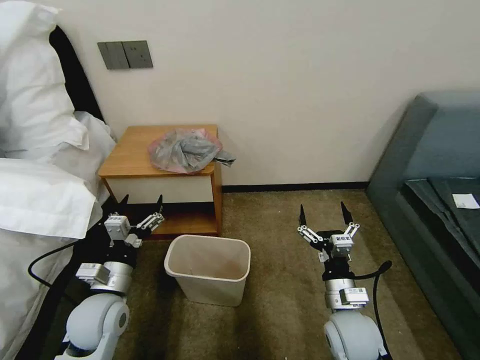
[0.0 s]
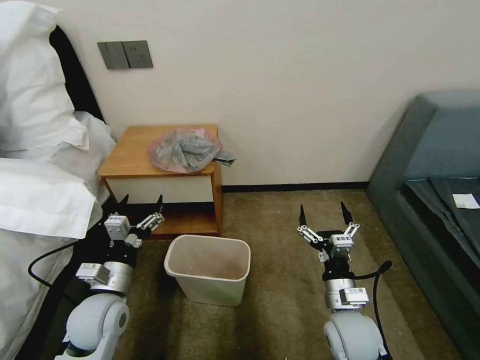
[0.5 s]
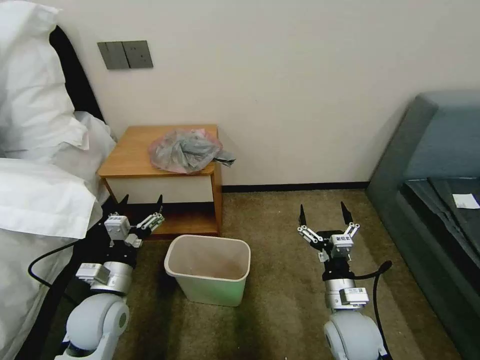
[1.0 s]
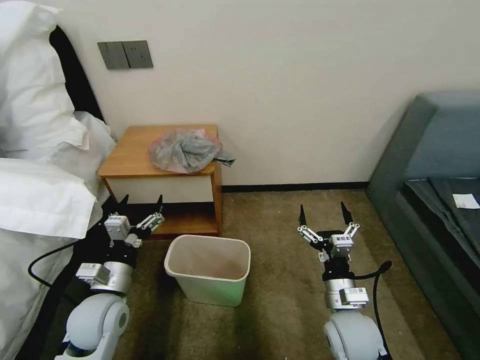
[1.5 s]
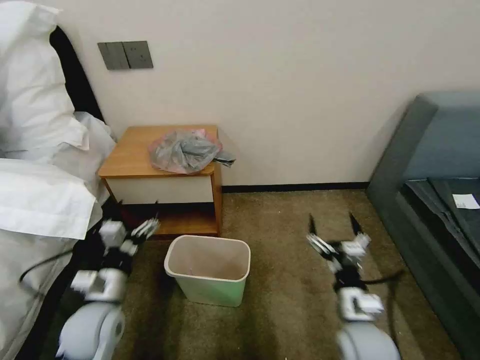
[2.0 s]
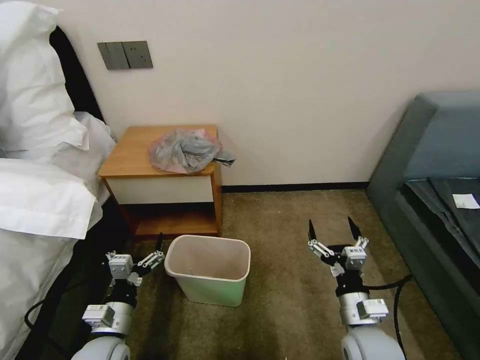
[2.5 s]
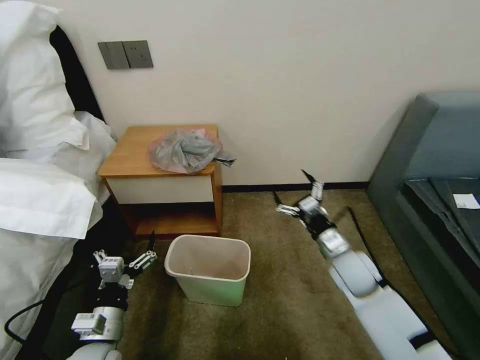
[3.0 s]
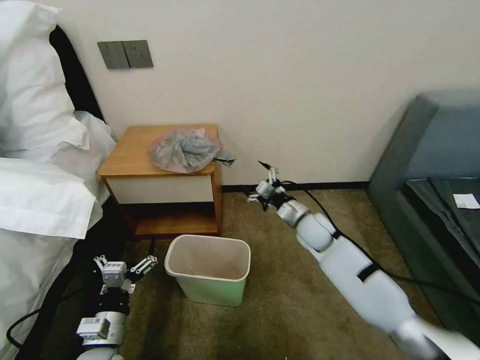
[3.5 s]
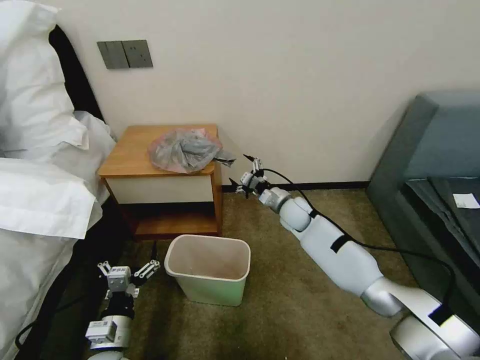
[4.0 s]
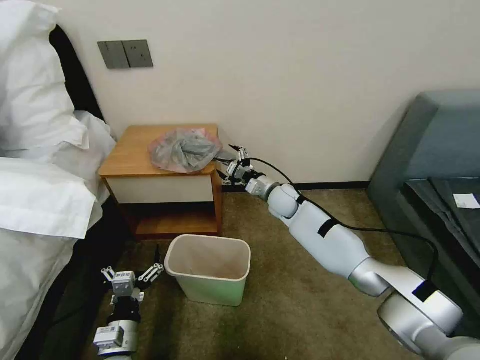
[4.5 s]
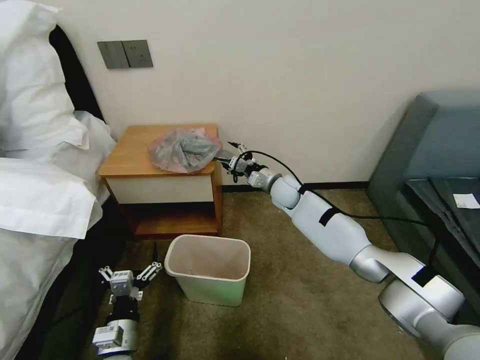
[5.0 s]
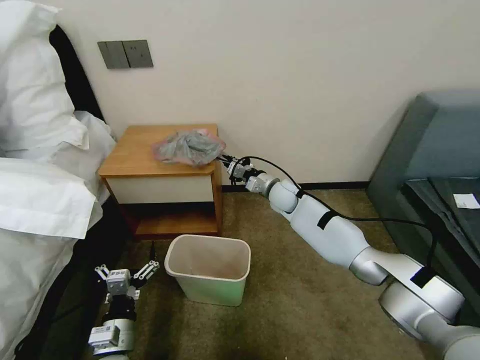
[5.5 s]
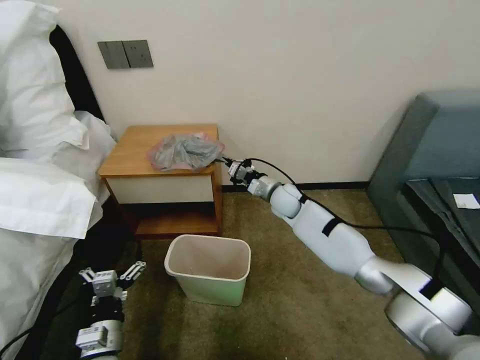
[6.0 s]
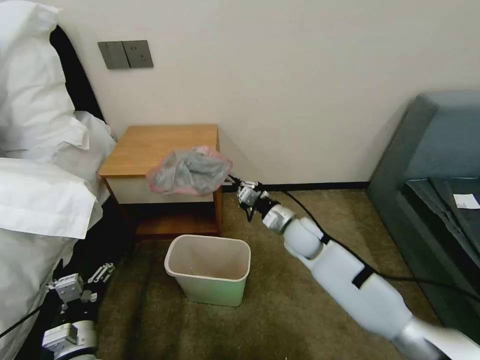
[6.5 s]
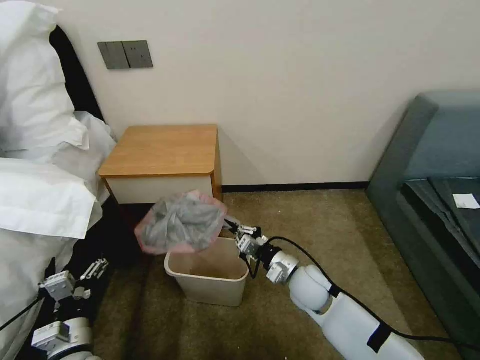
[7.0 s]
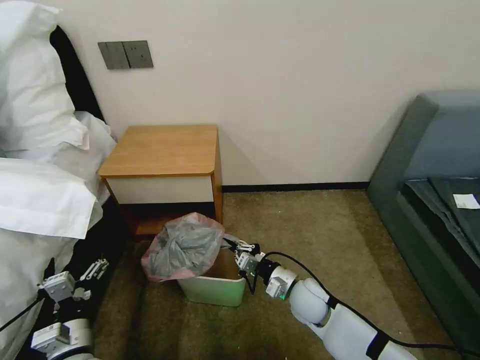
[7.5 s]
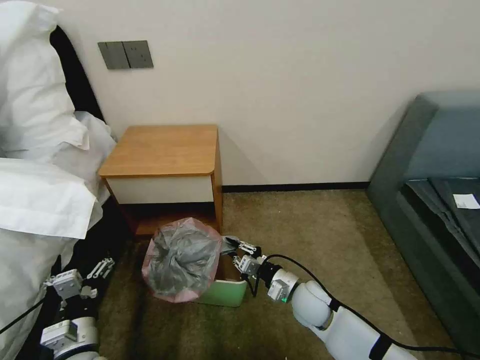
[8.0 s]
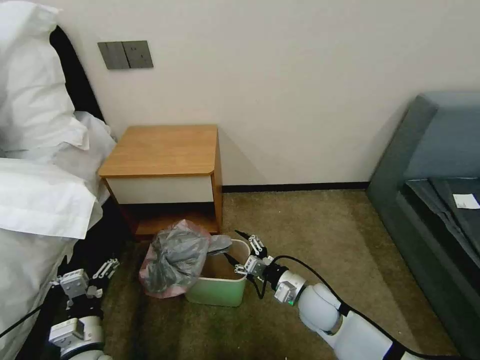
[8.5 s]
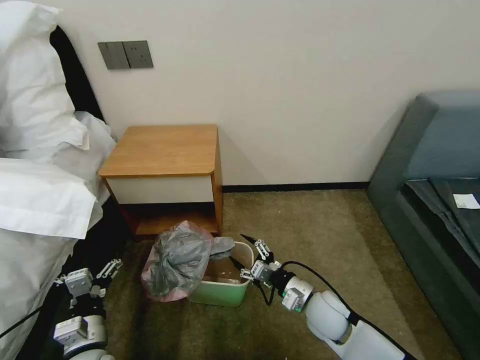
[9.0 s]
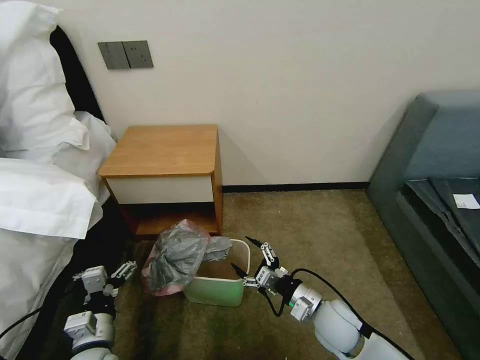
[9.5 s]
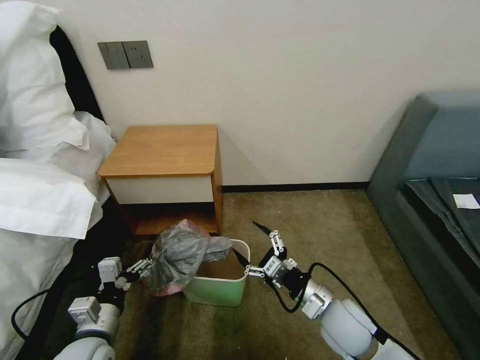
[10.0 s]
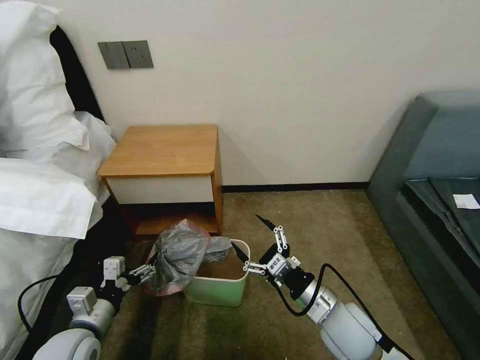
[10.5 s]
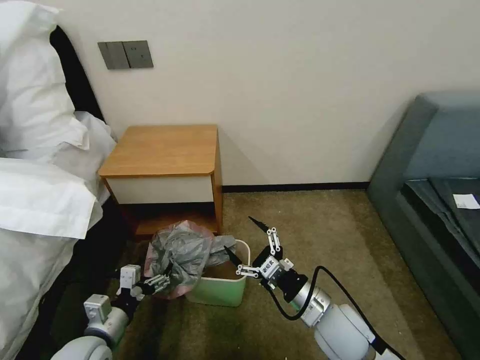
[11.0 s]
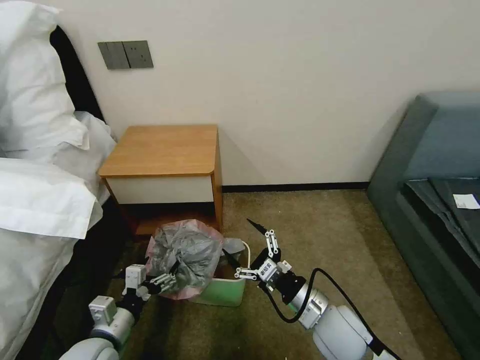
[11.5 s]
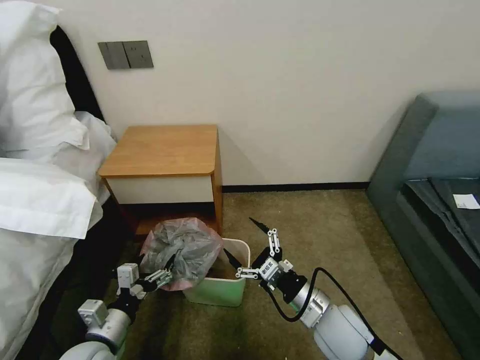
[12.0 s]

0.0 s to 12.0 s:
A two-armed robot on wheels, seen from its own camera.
Task of the whole recording: Pick up the garbage bag from the table and place it over the trash can.
2.0 to 4.0 s: The left gripper moves backward and downward, approximately 10 cm. Meanwhile the right gripper goes approximately 30 cm forward.
4.0 to 6.0 s: The right gripper closes its fingers.
6.0 to 8.0 s: The right gripper is displaced backward and downward by about 25 cm.
8.0 to 10.0 s: The right gripper moves upward and backward, approximately 10 cm, and opens.
10.0 to 12.0 s: The grippers move only a little.

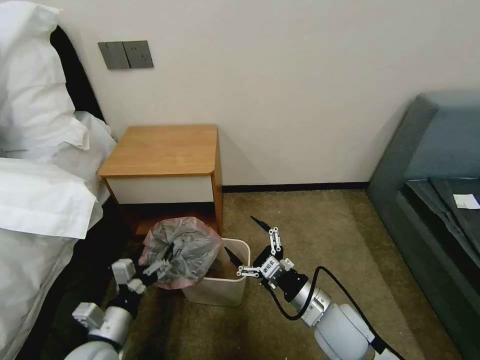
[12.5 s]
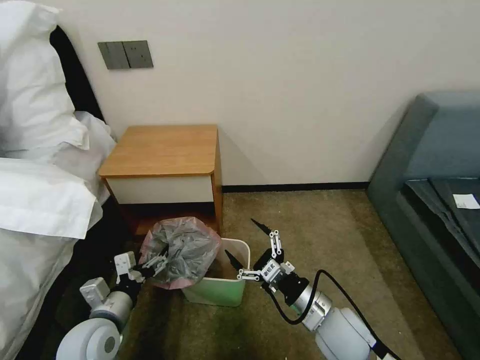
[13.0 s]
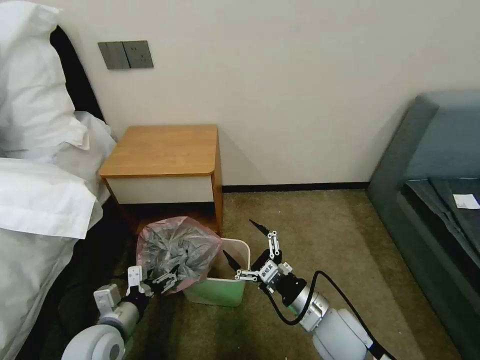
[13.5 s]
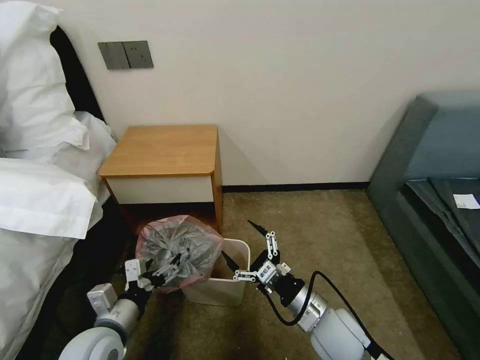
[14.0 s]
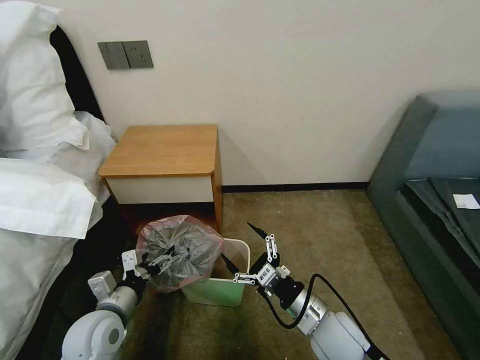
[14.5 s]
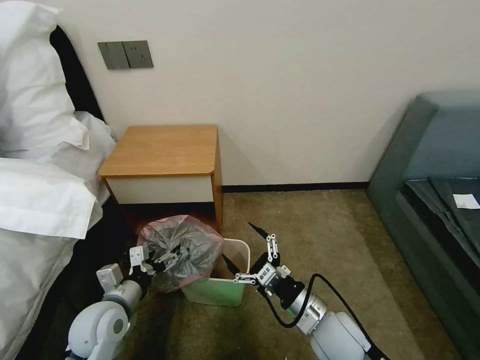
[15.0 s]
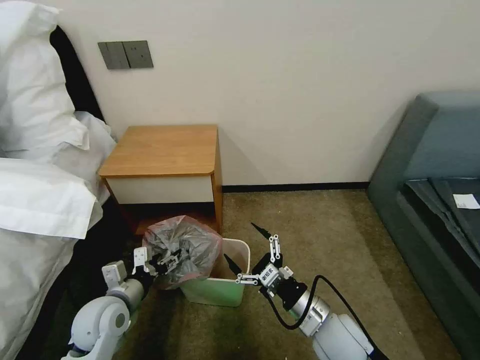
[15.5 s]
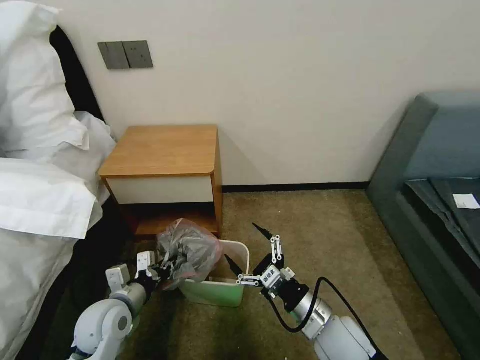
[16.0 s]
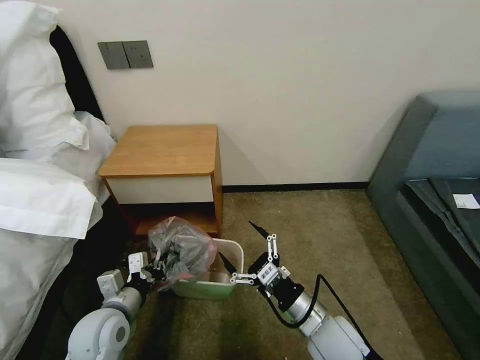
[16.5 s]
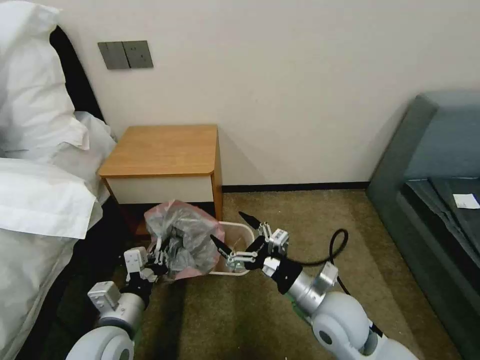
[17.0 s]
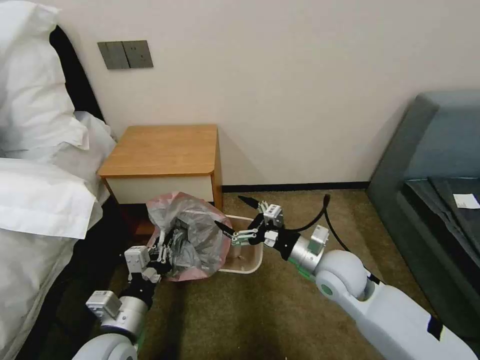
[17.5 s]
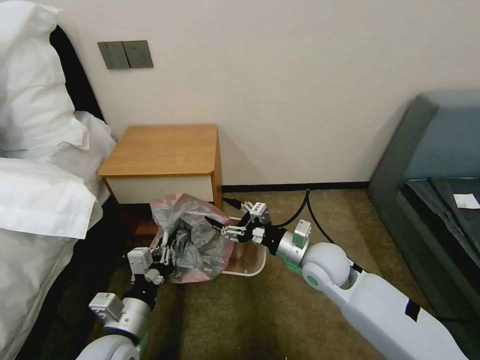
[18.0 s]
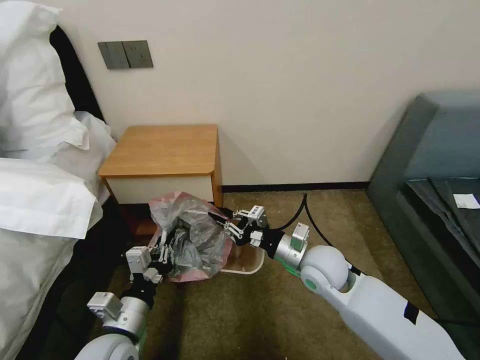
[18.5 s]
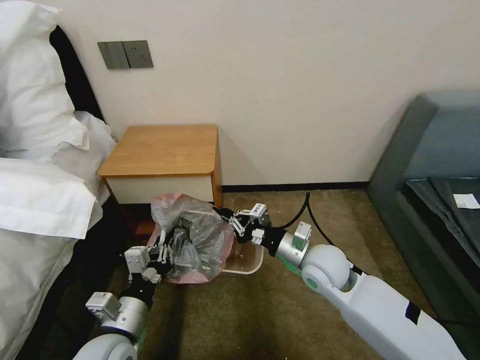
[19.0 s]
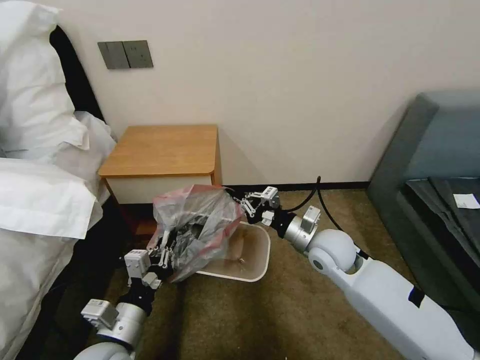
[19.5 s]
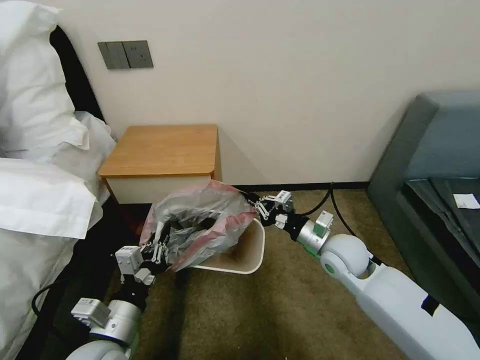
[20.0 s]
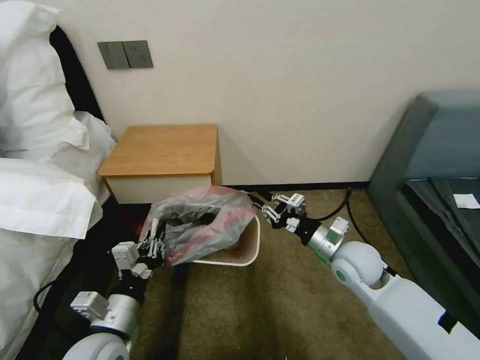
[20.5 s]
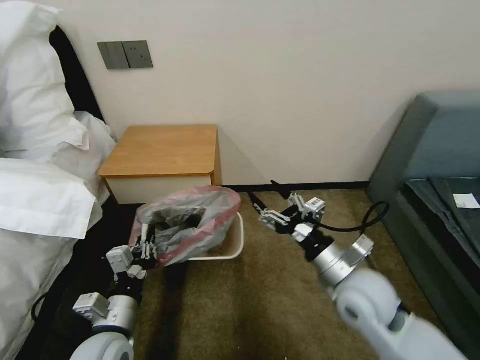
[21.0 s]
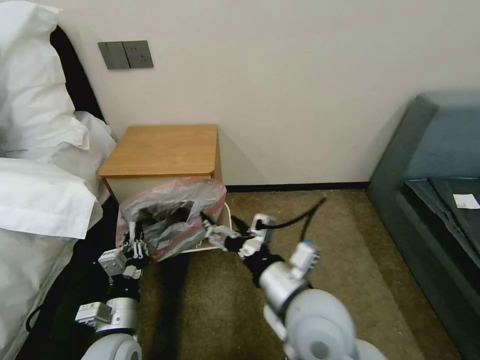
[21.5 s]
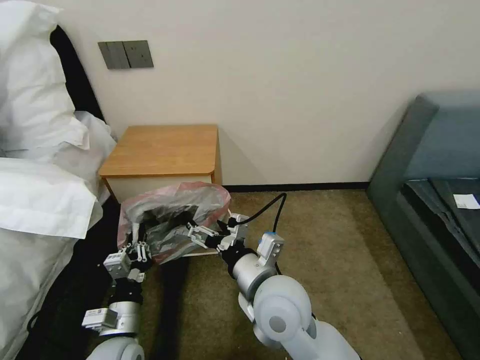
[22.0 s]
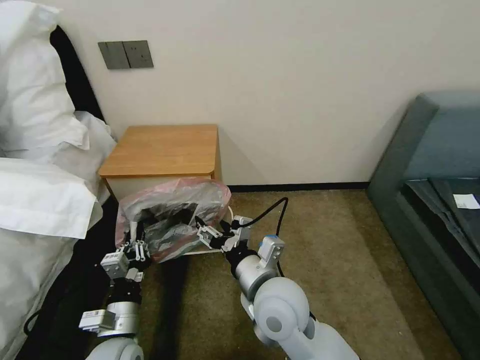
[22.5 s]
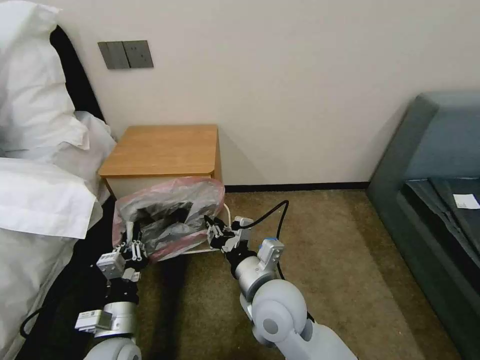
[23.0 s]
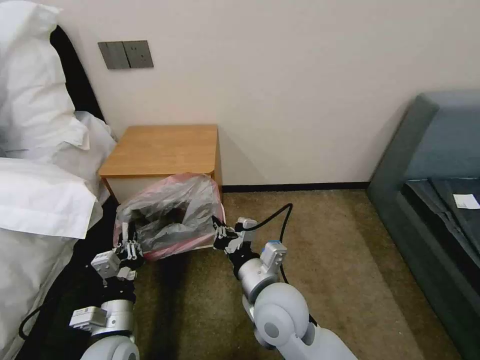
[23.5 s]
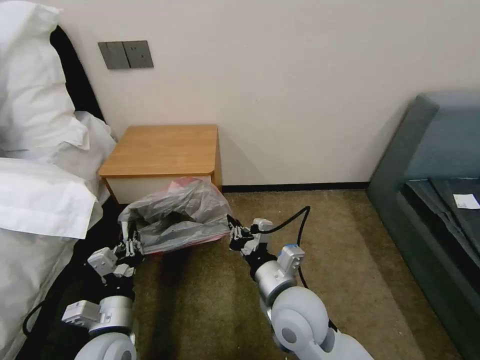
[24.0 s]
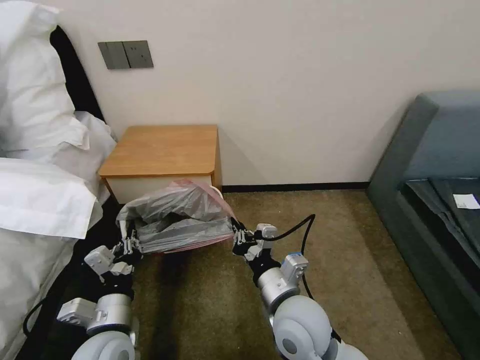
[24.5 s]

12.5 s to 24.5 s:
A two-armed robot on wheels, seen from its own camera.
Task of the whole recording: Pick up the garbage bag from the table and place it over the trash can.
12.5 to 14.5 s: The left gripper moves forward, approximately 5 cm.
14.5 to 16.5 s: The left gripper closes.
16.5 to 18.5 s: The left gripper changes place by approximately 5 cm; the right gripper heads forward and upward, covering approximately 15 cm, and closes.
18.5 to 20.5 s: The right gripper is displaced to the right by approximately 10 cm.
20.5 to 22.5 s: The left gripper shifts some 5 cm downward. The right gripper heads to the left and backward, covering approximately 20 cm, and opens its fingers.
22.5 to 24.5 s: The right gripper closes up.

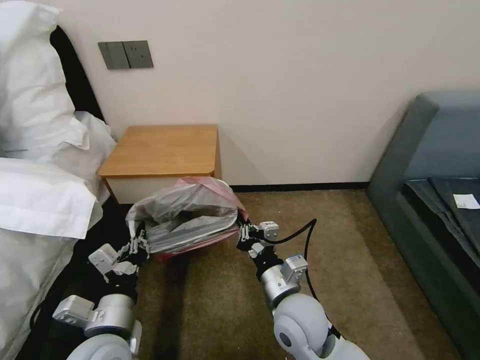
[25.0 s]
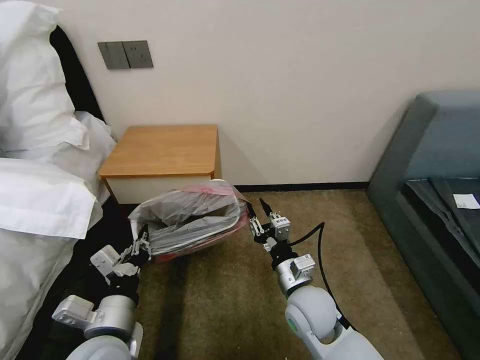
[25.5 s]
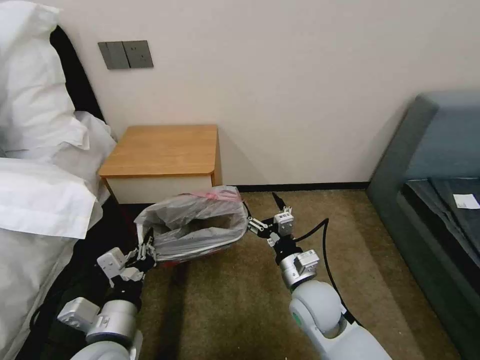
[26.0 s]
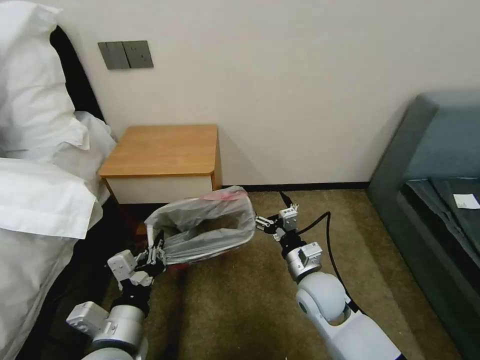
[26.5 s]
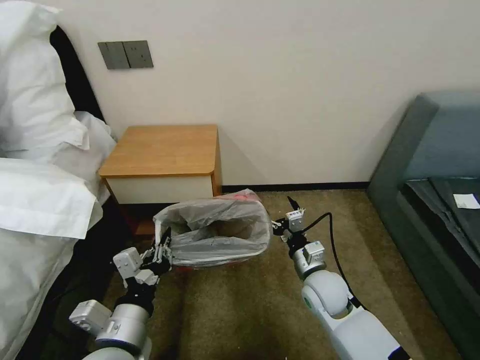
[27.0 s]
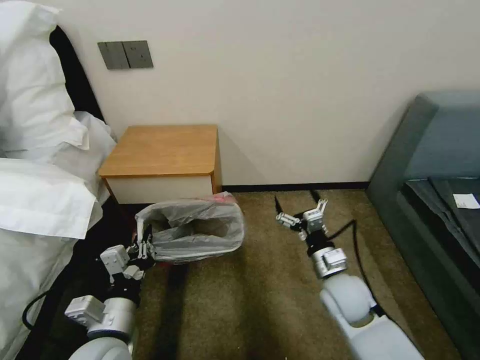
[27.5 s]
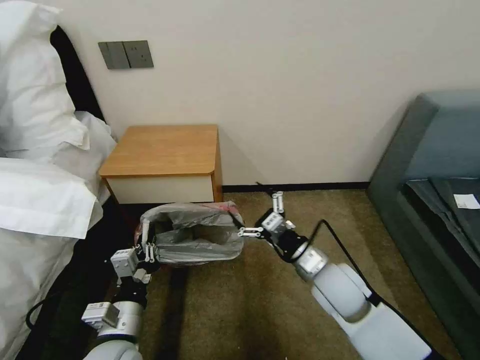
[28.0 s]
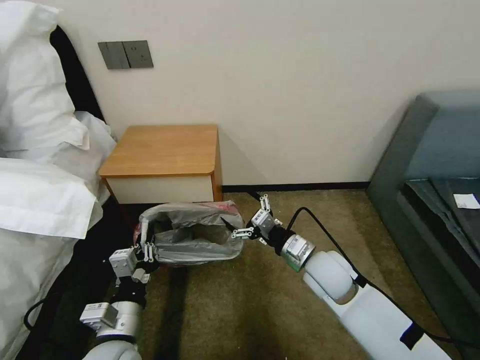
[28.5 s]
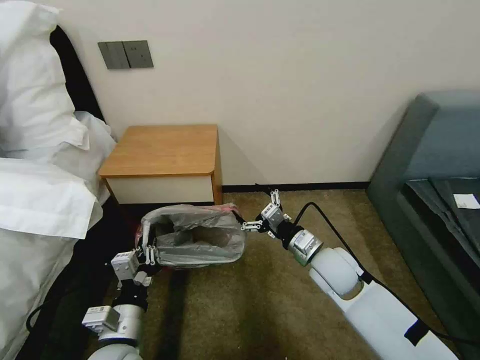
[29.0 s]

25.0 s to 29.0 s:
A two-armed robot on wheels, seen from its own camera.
Task of the whole recording: Pick up the garbage bag from the table and place it over the trash can.
25.0 to 27.0 s: The right gripper goes approximately 15 cm to the right, forward and downward, and opens its fingers.
27.0 to 29.0 s: The right gripper goes roughly 5 cm upward, while the left gripper travels downward by approximately 5 cm.
